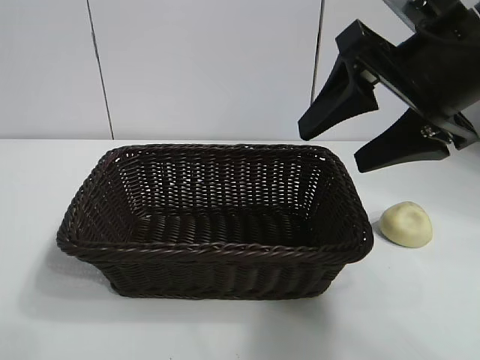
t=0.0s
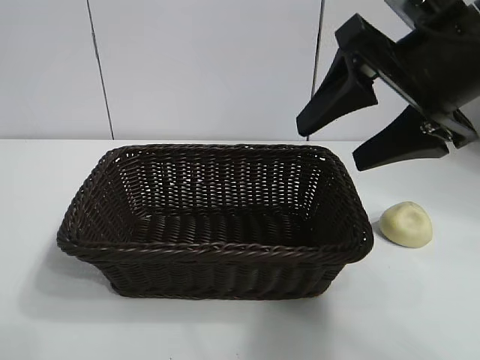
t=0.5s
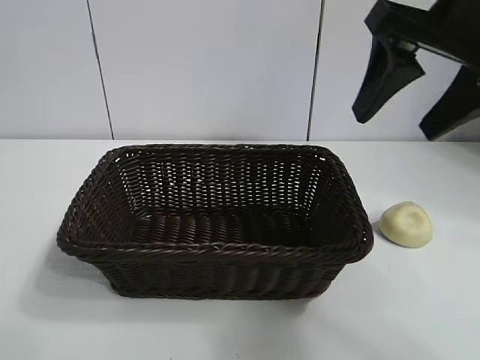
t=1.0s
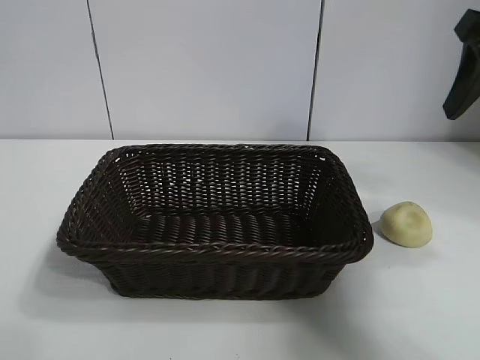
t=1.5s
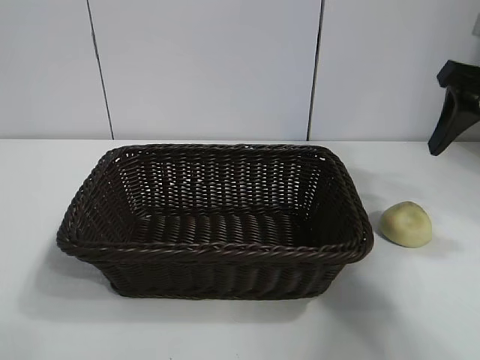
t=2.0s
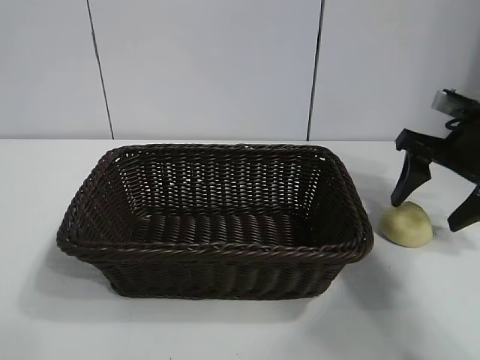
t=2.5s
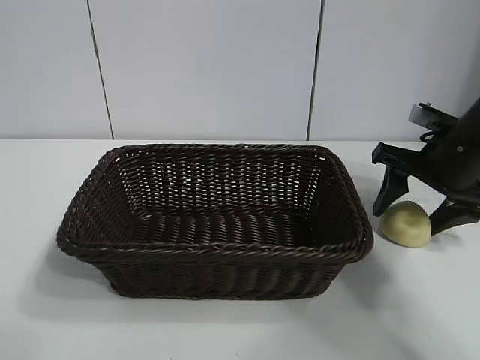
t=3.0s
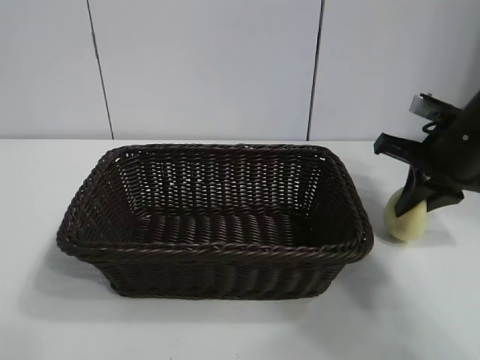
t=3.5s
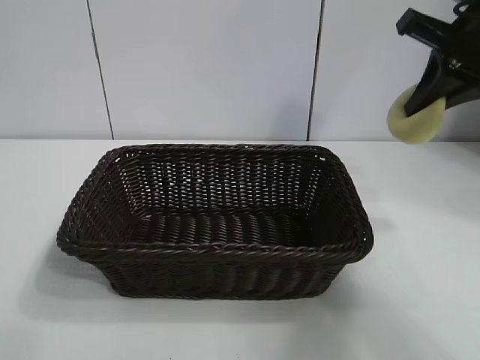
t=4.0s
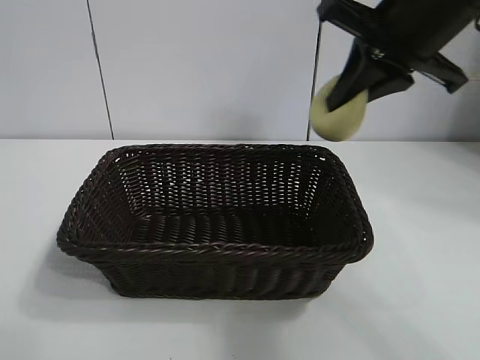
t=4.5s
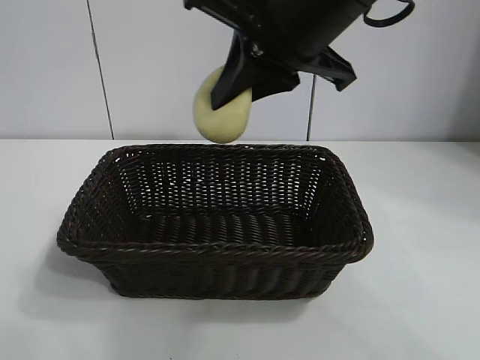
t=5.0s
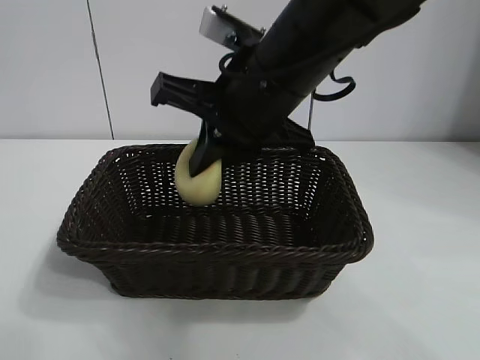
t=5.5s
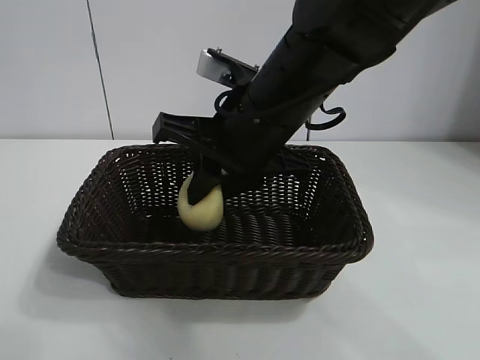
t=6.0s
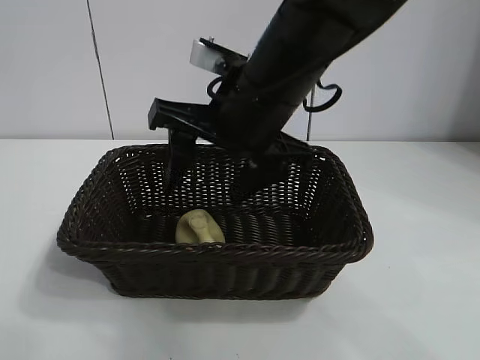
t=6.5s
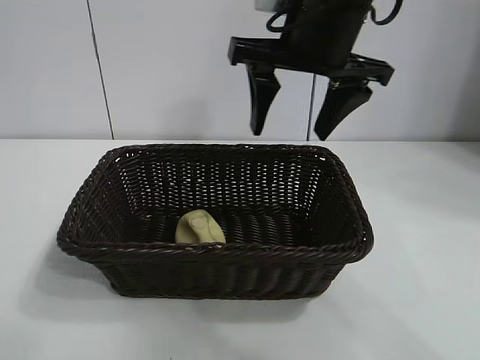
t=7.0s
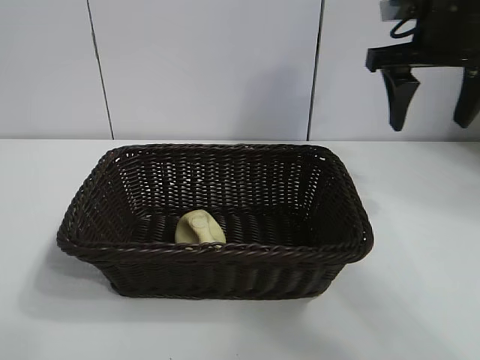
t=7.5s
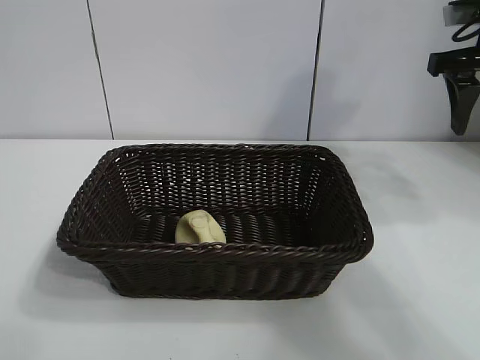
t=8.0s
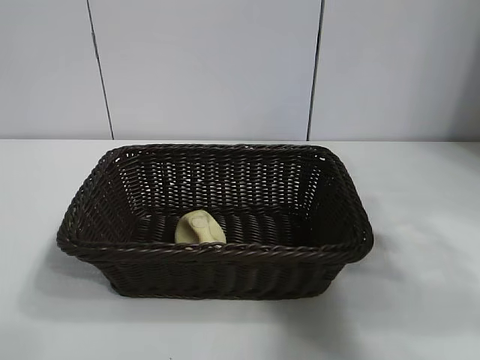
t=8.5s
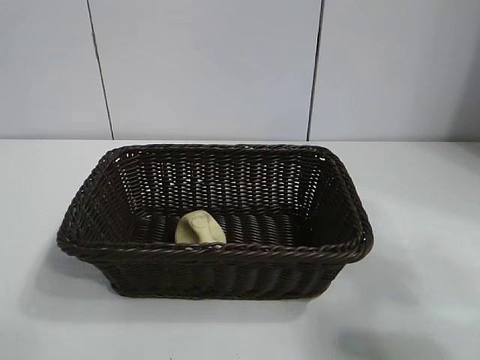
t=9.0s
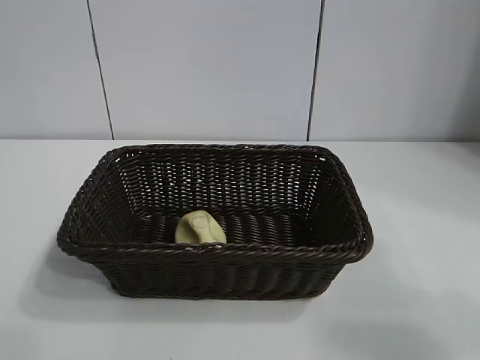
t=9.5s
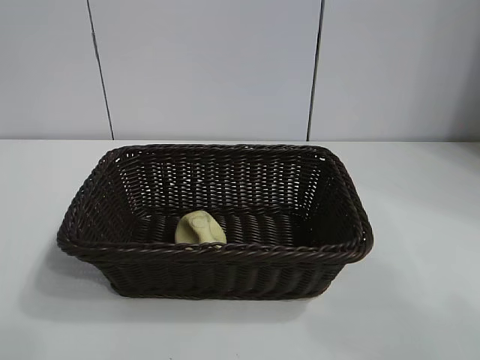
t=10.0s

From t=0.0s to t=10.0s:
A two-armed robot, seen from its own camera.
Task of the whole recording: pick up the egg yolk pastry and put it into the basket.
Step, from t=0.0s to t=3.0s: Grasp egg yolk pastry with right gripper.
Step, from t=3.5s to t=6.0s: Place the egg yolk pastry in the basket with right gripper.

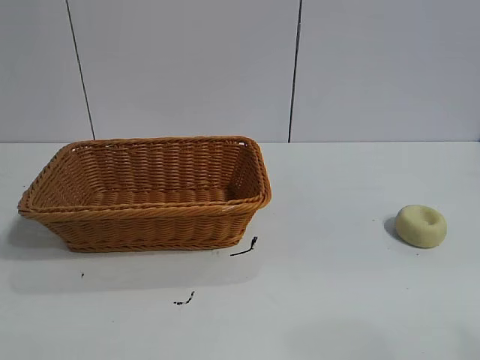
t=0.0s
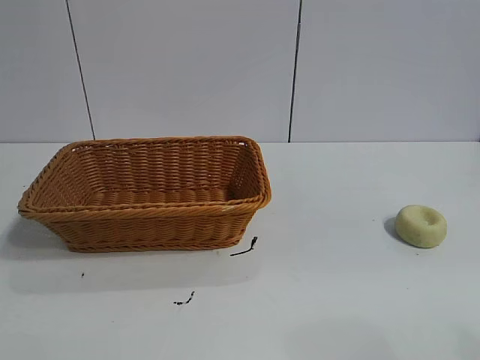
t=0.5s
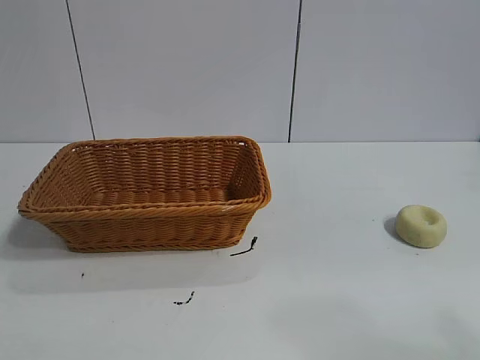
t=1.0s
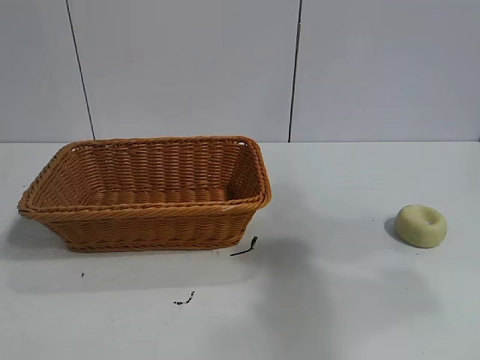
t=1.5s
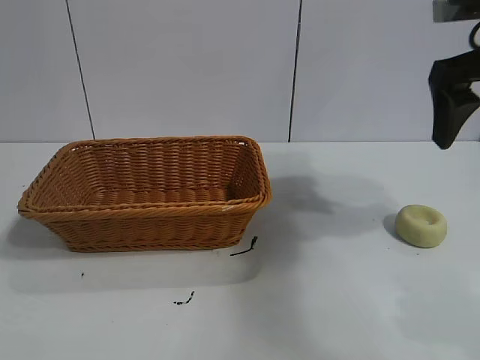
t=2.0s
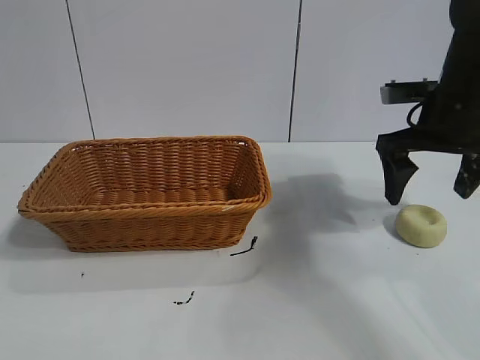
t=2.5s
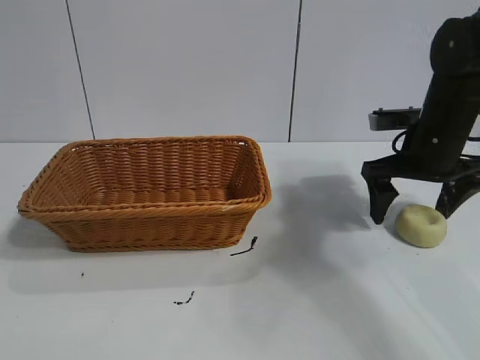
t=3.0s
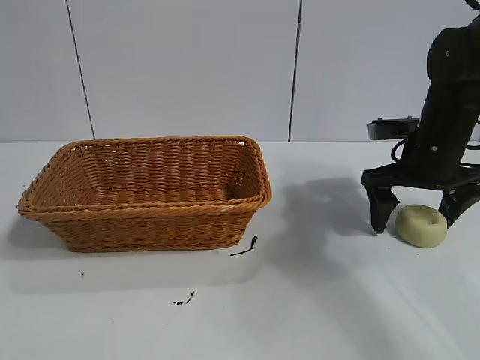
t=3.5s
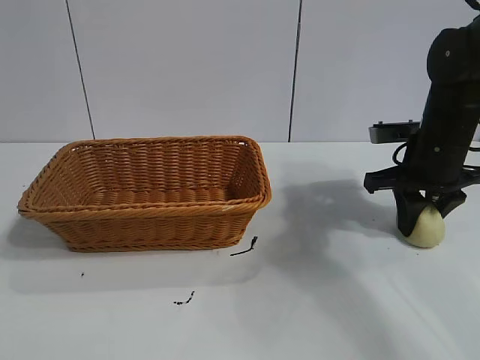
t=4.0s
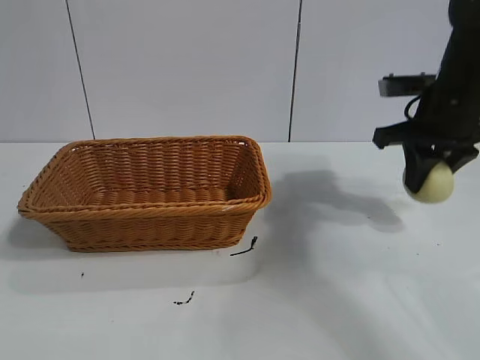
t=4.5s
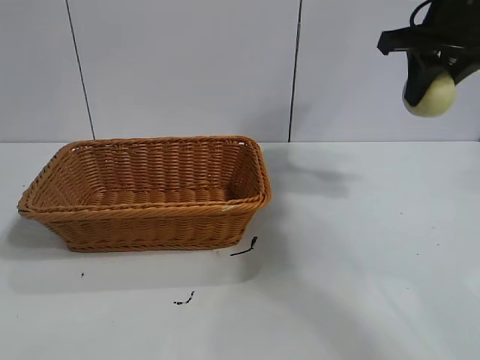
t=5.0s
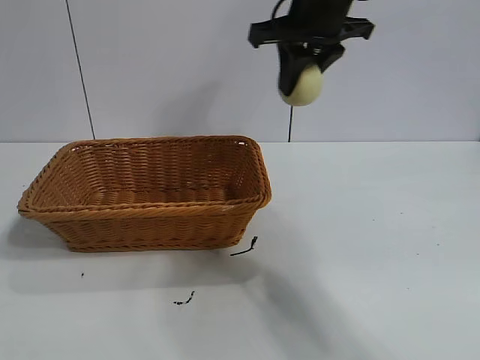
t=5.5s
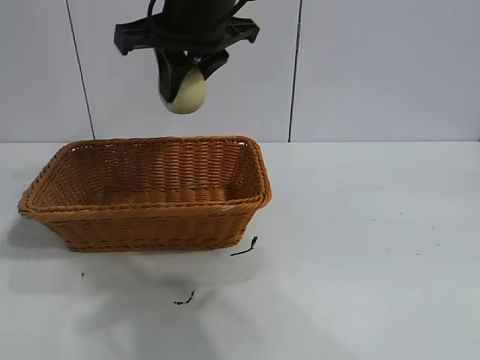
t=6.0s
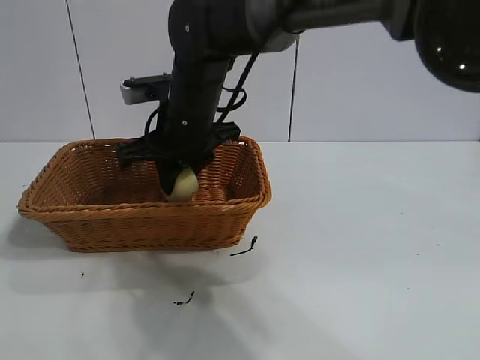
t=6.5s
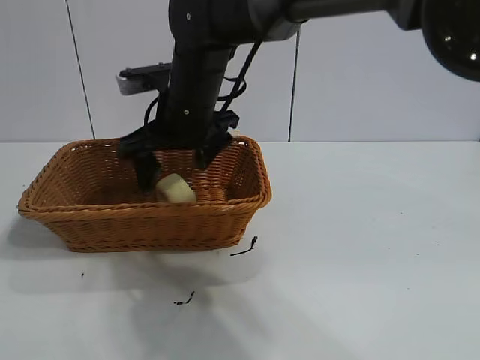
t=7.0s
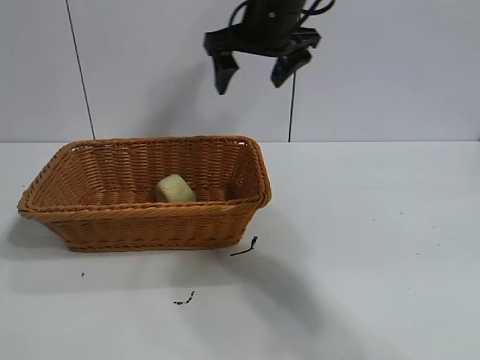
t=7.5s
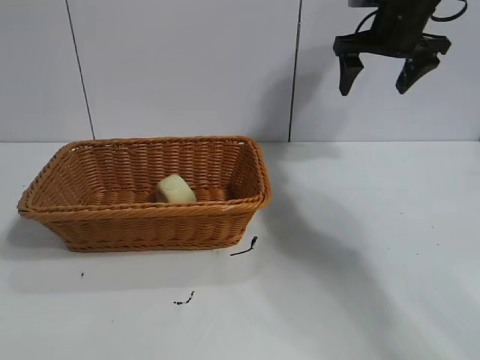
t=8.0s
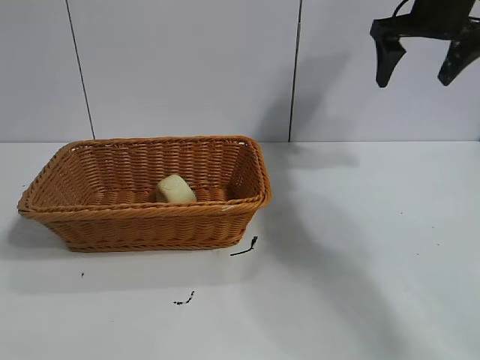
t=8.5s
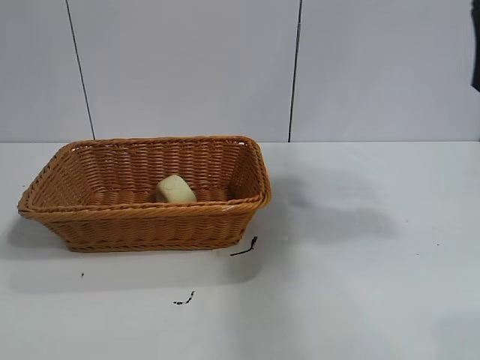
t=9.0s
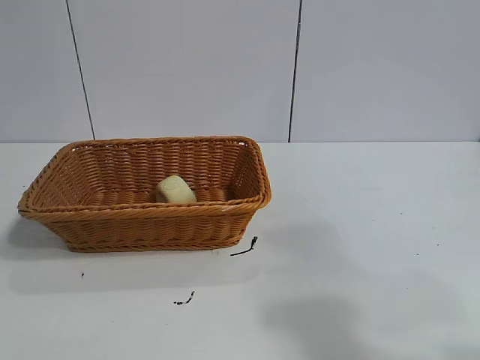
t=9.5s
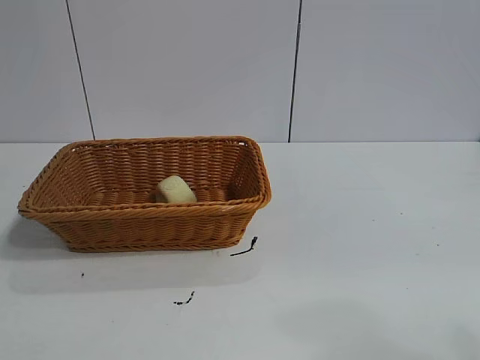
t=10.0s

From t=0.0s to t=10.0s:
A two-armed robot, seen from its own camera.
Task of the whole recording: pick up the egg yolk pastry and put it into the basket.
Step, from t=1.0s to t=4.0s: Grasp egg yolk pastry with right gripper.
Step, from t=4.5s to t=7.0s: Place the egg yolk pastry in the basket with right gripper.

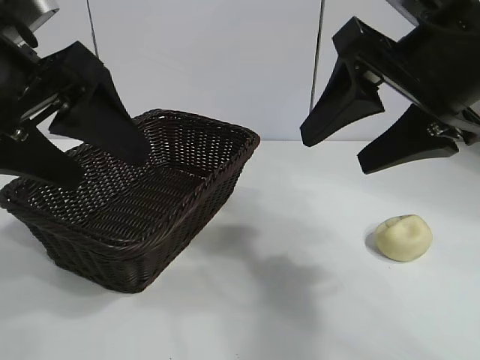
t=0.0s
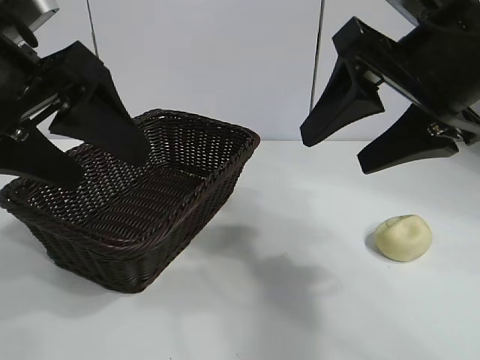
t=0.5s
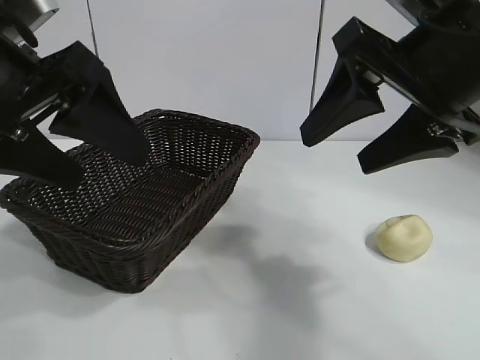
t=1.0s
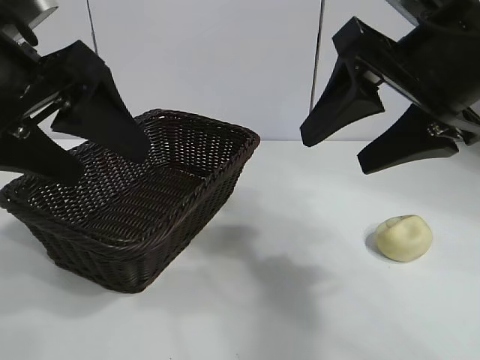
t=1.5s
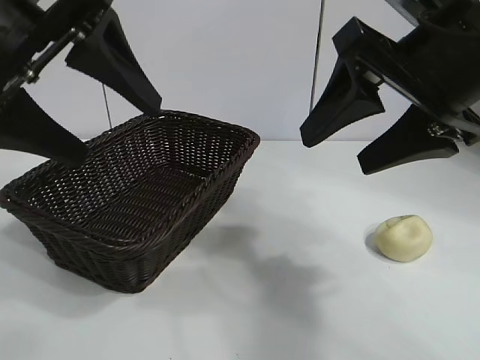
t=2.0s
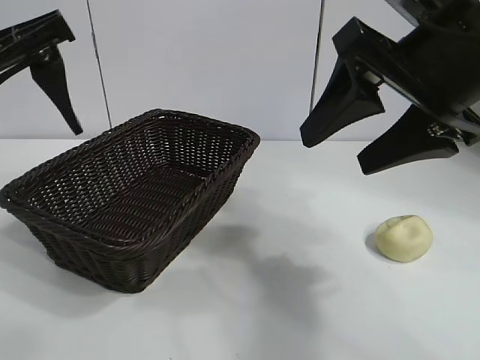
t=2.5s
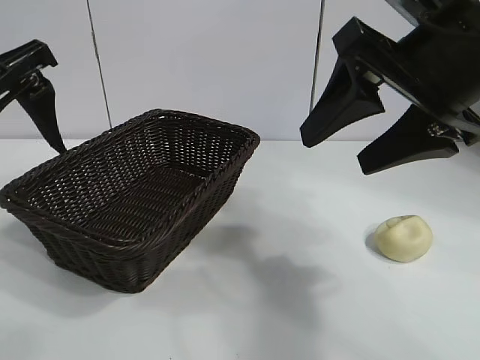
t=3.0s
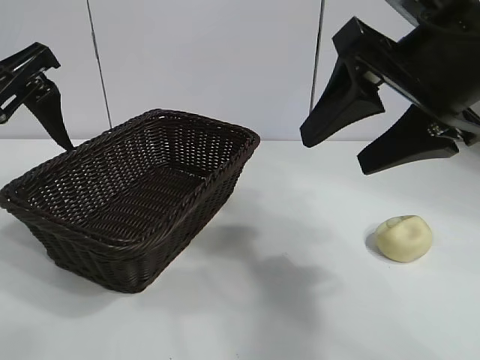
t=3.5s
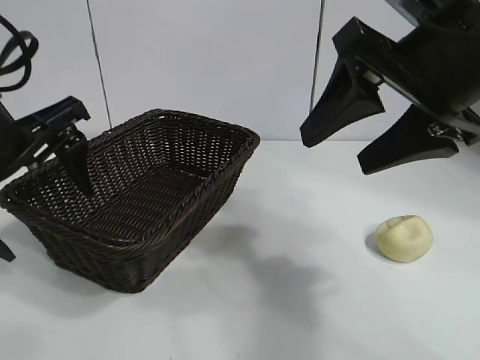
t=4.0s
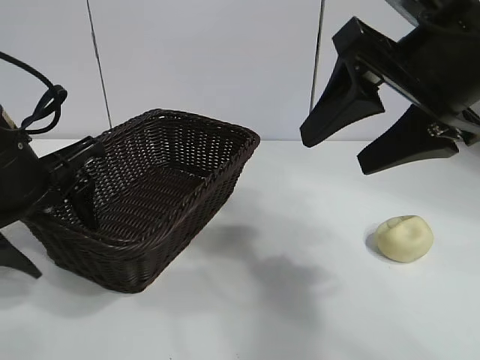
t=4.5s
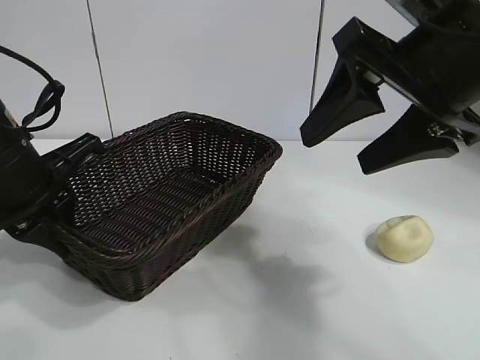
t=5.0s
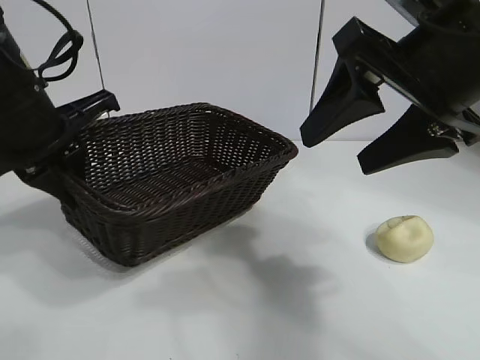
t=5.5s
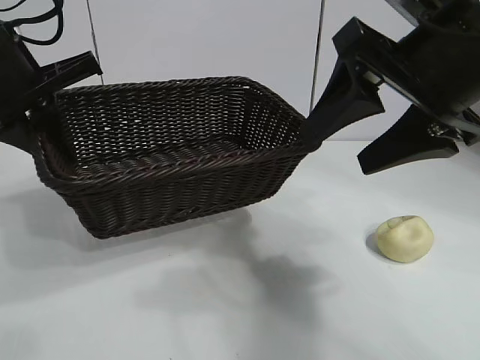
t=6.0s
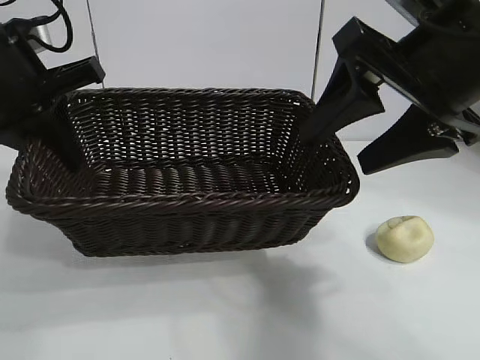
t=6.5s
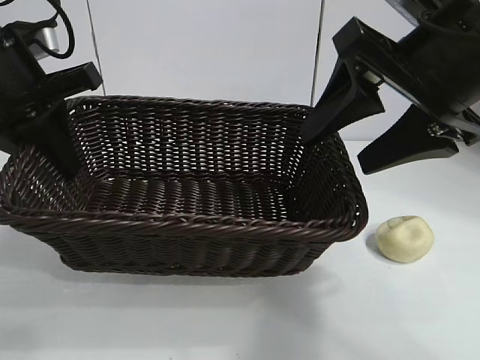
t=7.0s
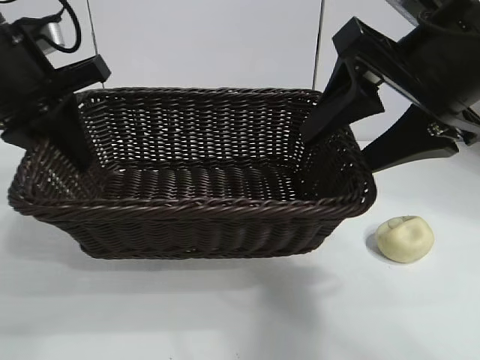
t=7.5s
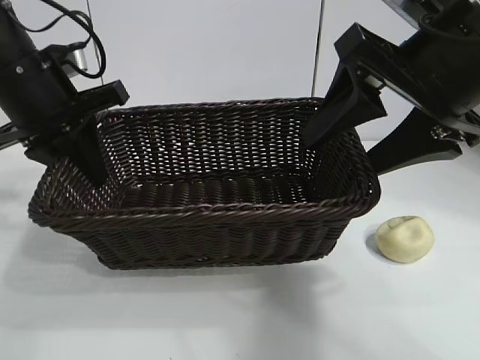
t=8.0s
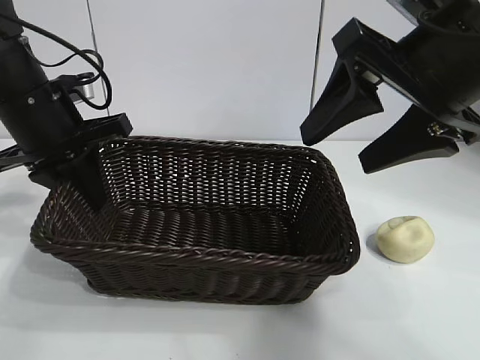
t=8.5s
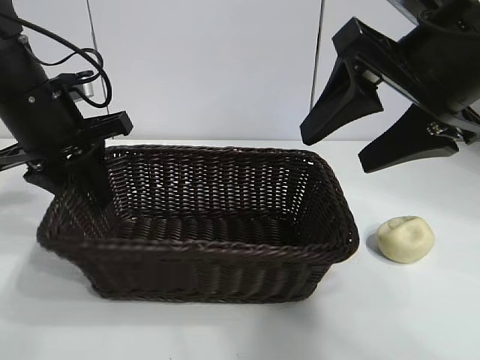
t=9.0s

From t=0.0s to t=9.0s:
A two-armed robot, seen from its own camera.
Task of the whole recording: pick up the egg yolk pastry and put it into the basket.
Step, from t=1.5s to t=4.5s: Grasp the basket with left gripper.
